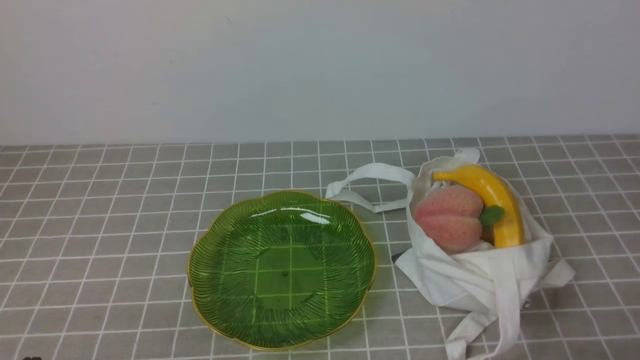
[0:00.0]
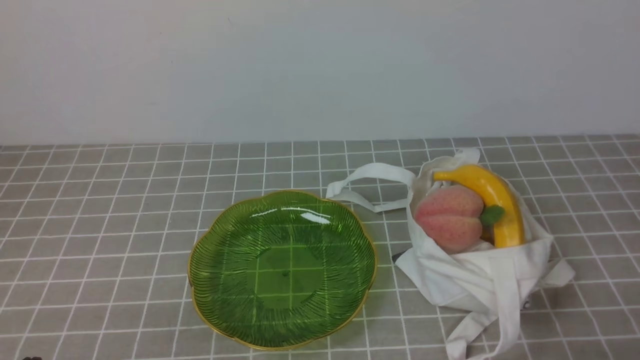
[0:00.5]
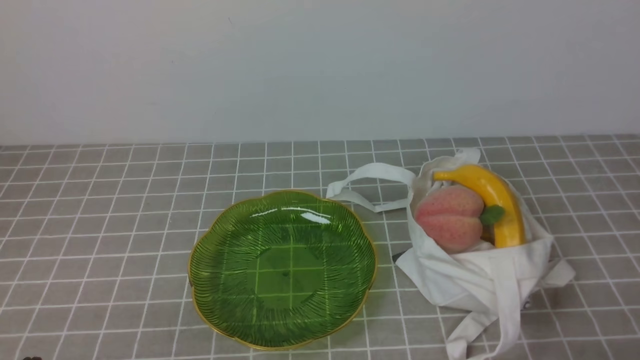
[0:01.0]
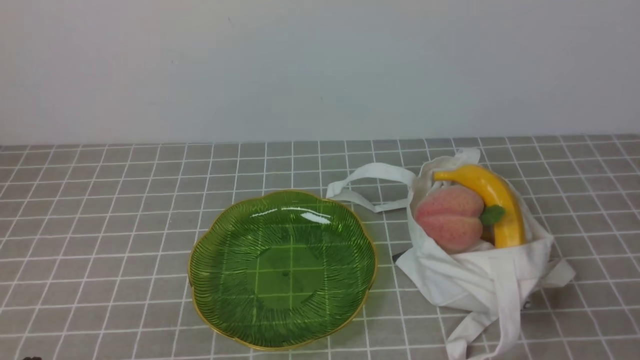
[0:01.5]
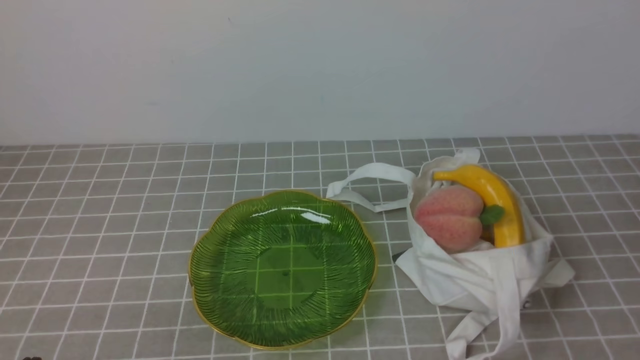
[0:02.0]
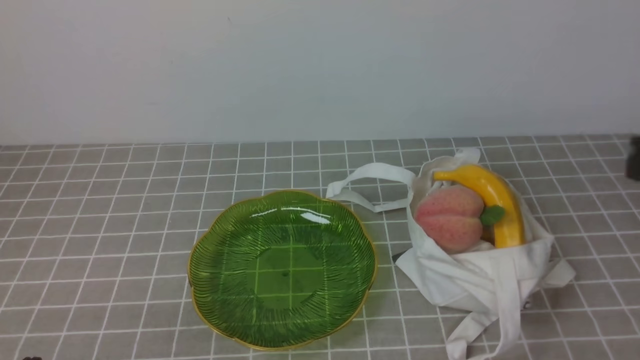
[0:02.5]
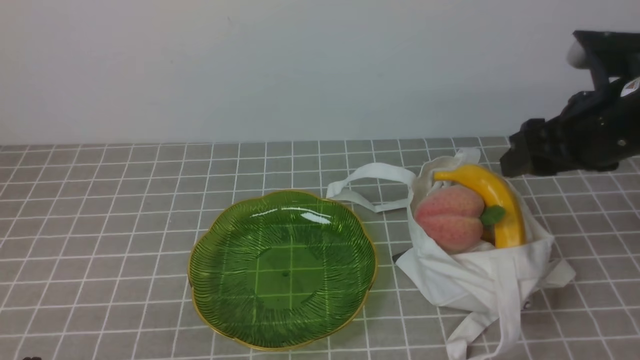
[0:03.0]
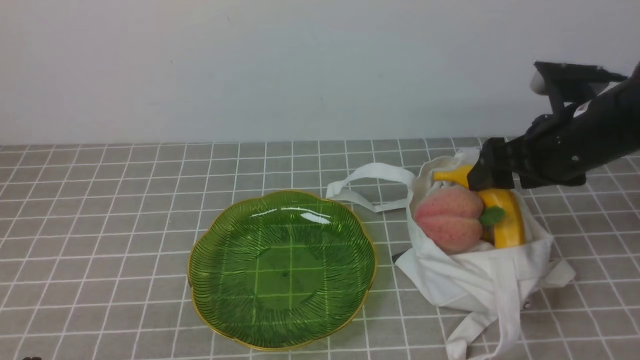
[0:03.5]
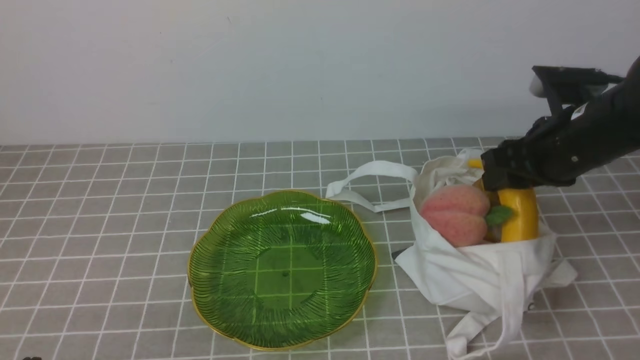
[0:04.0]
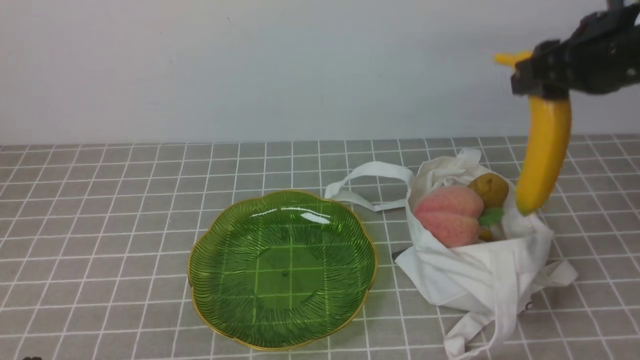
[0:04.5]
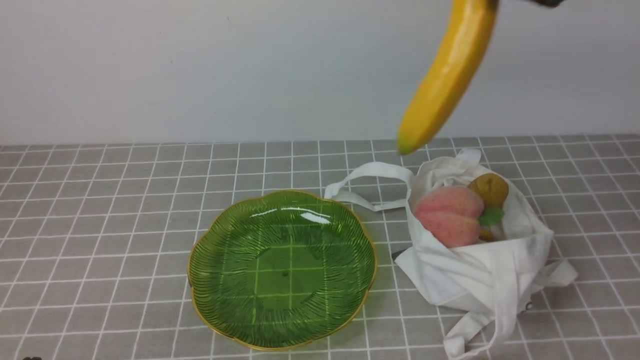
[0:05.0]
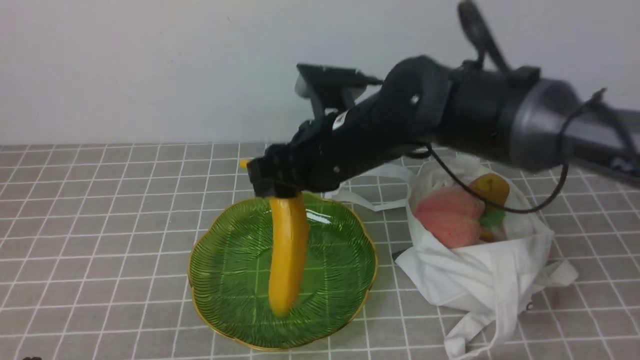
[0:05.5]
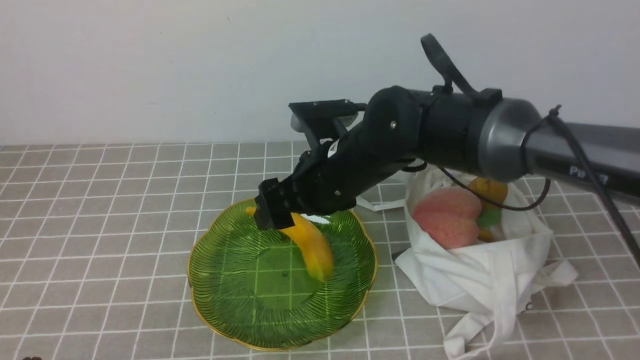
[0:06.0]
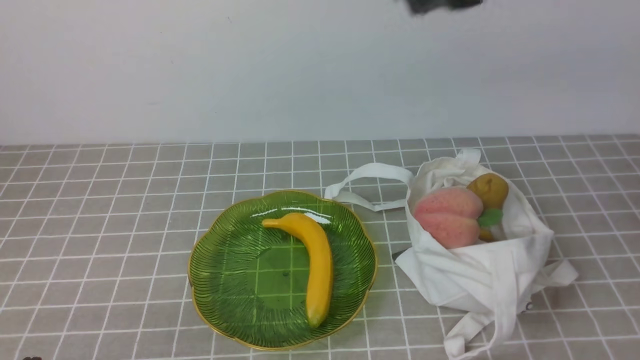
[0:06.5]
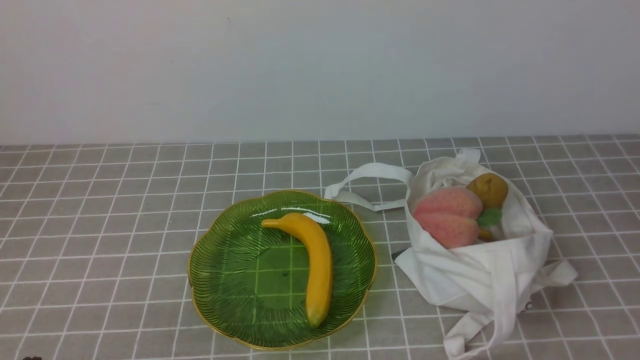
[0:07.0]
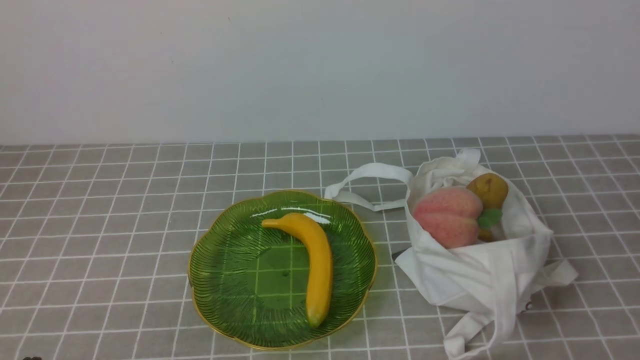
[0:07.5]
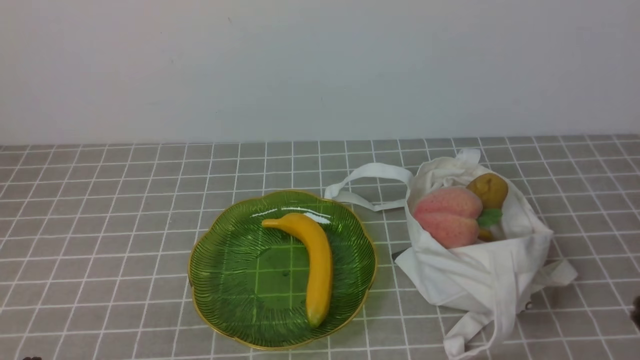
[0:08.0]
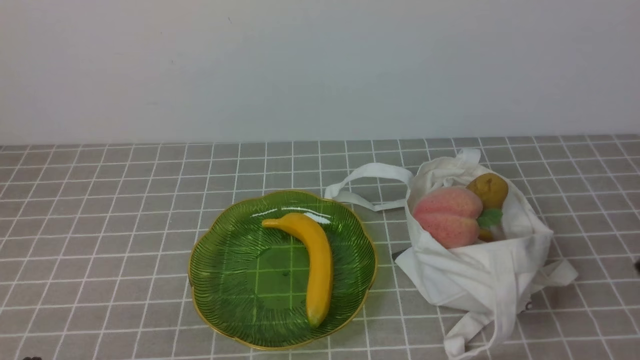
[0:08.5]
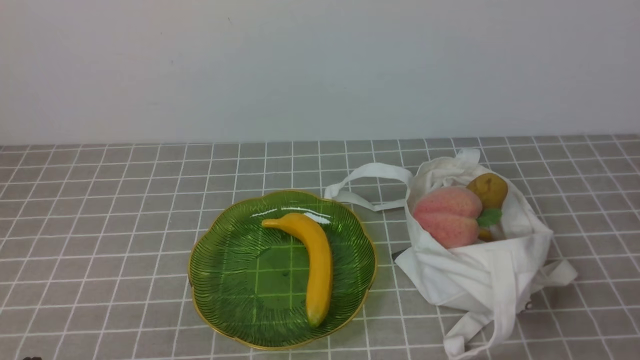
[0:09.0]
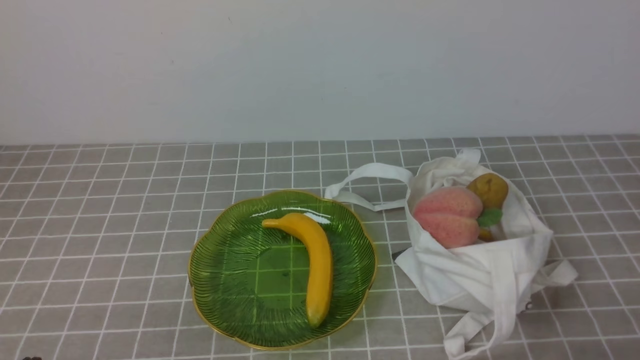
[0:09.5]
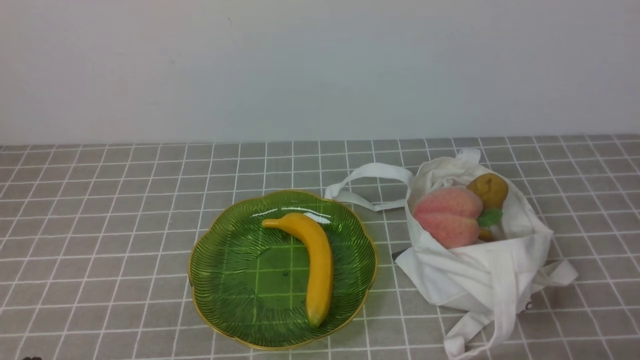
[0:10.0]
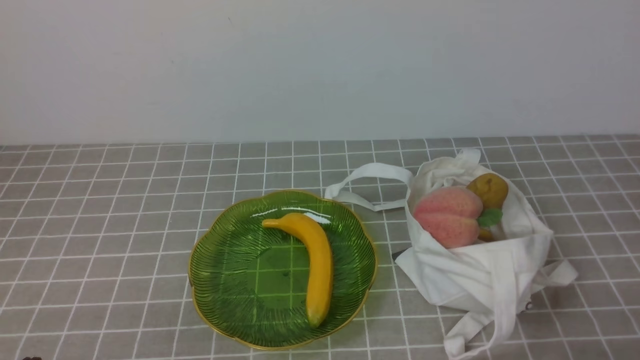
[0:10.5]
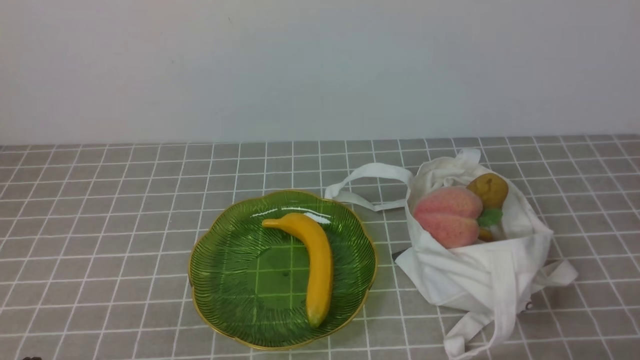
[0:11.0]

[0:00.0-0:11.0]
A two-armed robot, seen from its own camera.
Step, 0:00.0 to 0:04.5: use the right arm to grab a banana from the bag.
Step, 0:05.0 to 0:06.0: use the right arm to put the banana into the empty plate on the right.
0:02.0 to 0:03.5: The right gripper moves forward, roughly 25 cm, and opens its fingers.
0:03.5 to 0:05.5: The right gripper goes about 20 cm to the left, and closes up.
0:05.5 to 0:07.5: The right gripper is displaced backward and to the right by some 35 cm, and closes up.

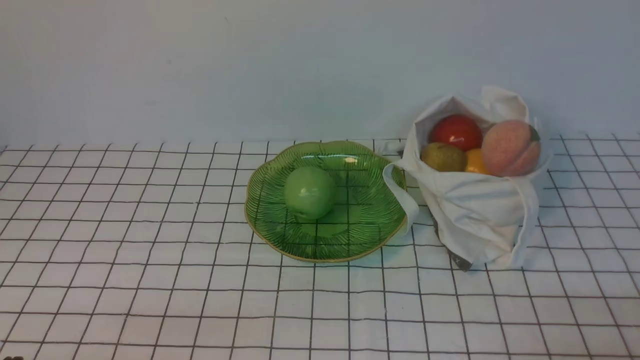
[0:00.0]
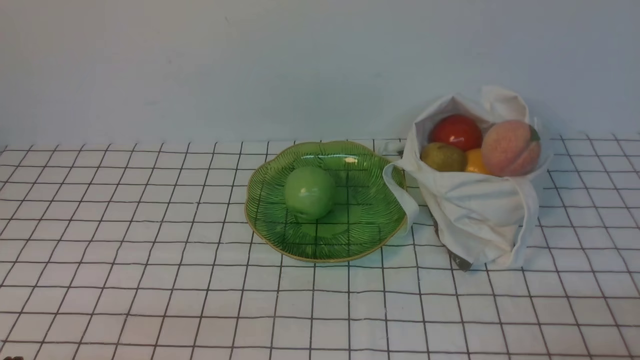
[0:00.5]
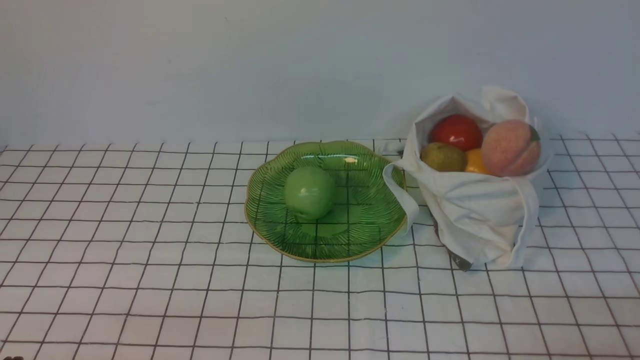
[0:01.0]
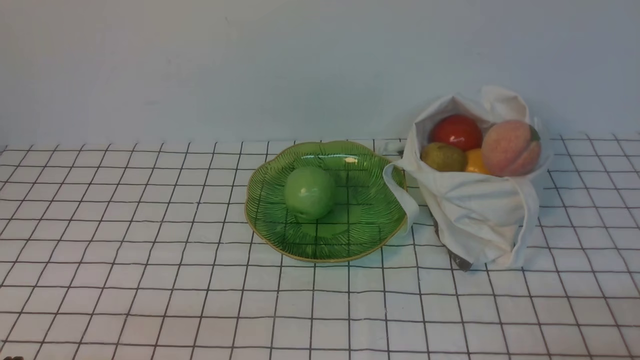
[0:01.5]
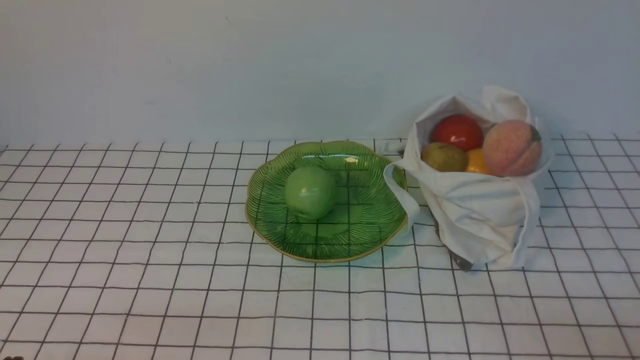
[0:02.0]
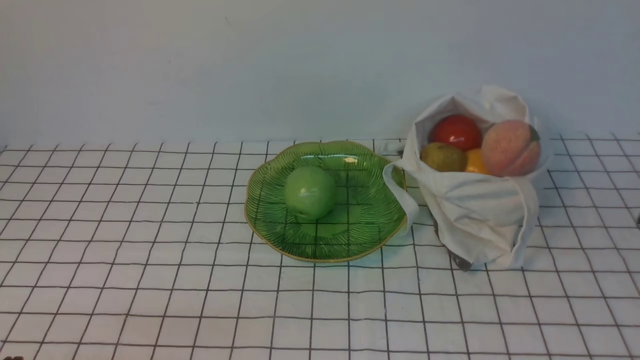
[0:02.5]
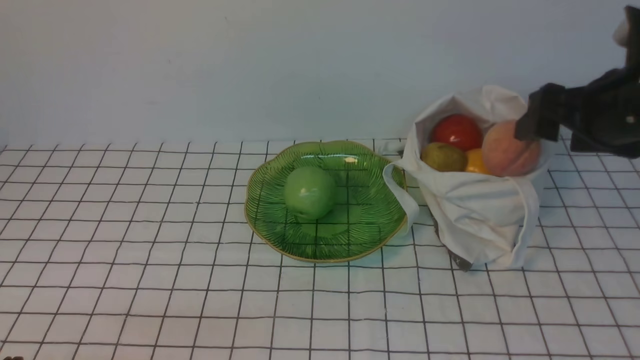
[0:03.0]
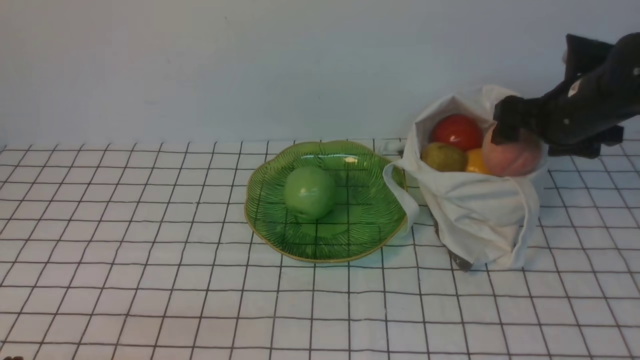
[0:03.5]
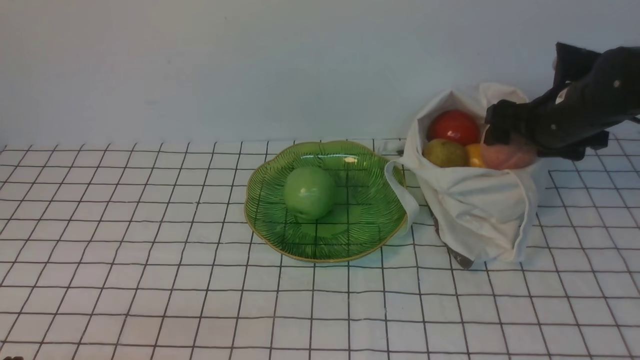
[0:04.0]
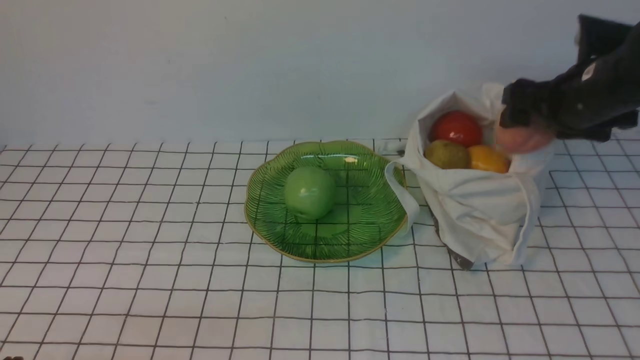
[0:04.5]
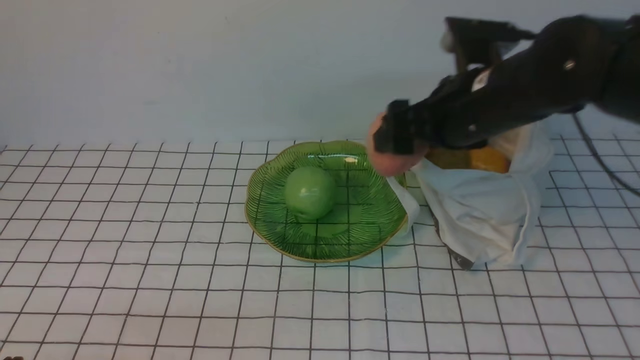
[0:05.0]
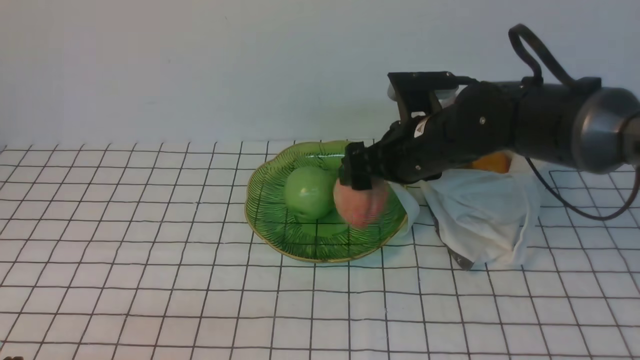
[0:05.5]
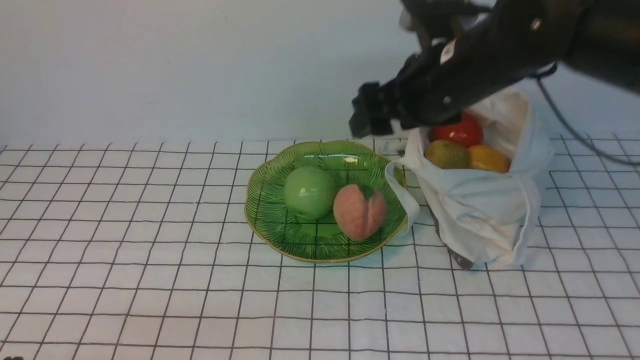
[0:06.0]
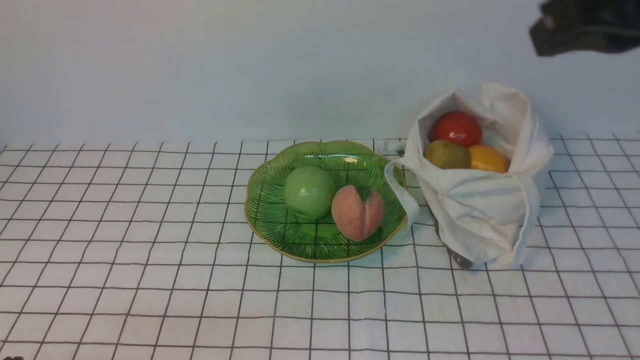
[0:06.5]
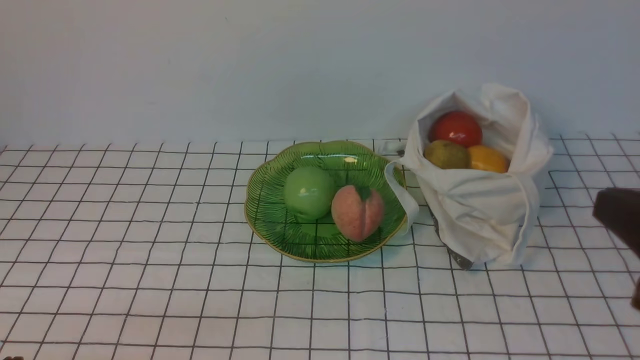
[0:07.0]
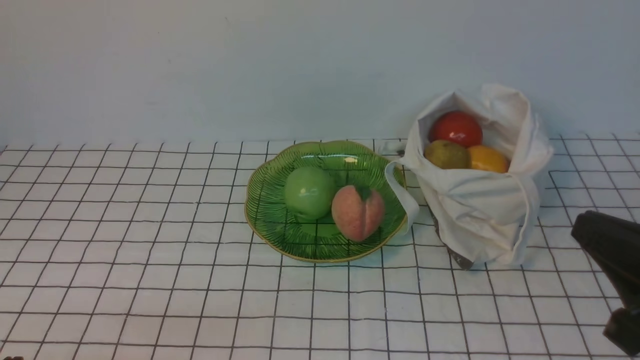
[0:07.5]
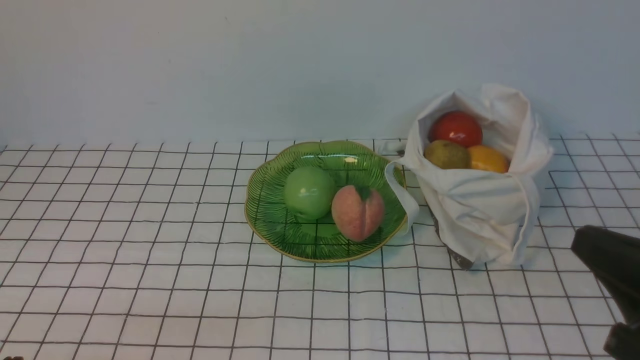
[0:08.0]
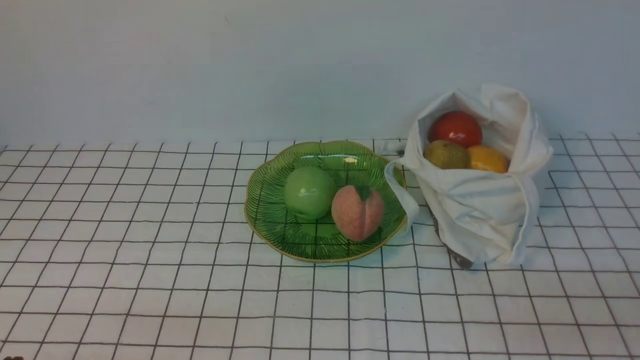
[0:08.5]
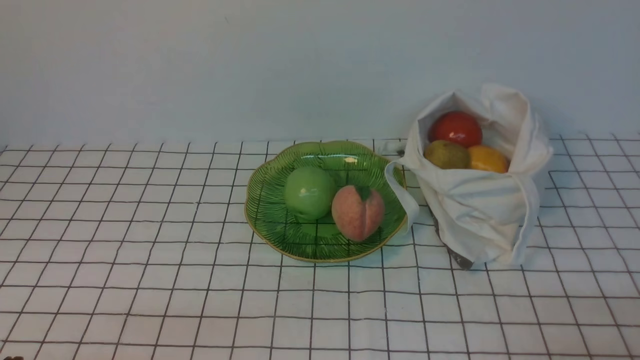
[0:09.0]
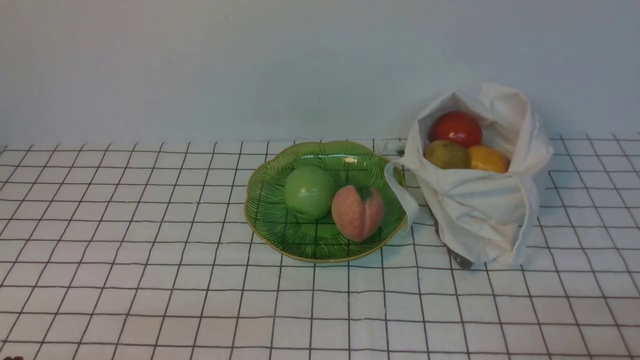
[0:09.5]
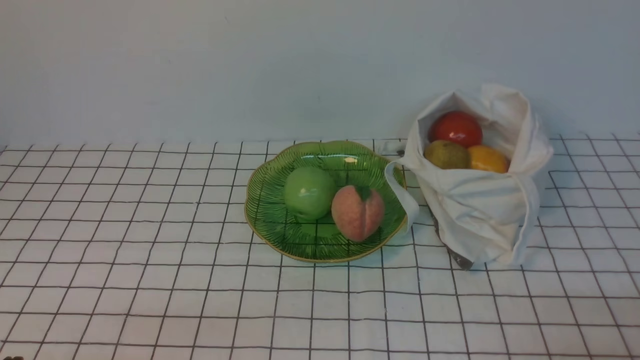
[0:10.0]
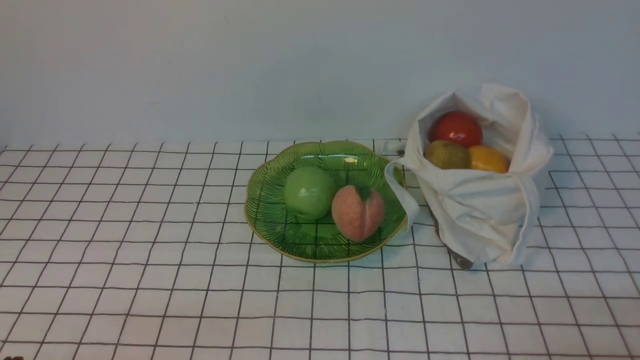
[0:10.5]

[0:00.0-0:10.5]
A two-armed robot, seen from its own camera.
Step, 0:00.0 to 0:03.5: use the right arm to grab a peach from the bag.
Step, 0:04.5 to 0:05.5: use the right arm to put the peach into the empty plate on the left.
0:02.0 to 0:04.0: The right gripper heads forward, covering roughly 35 cm, and opens its fingers.
0:04.0 to 0:06.5: The right gripper moves up and down over some 20 cm, changing direction 2 times, and closes its fingers.
0:06.5 to 0:08.5: The right gripper heads downward, backward and to the right, covering roughly 30 cm.
